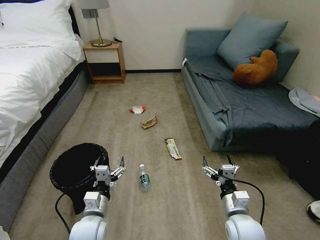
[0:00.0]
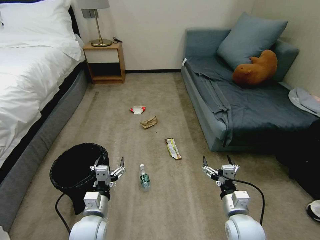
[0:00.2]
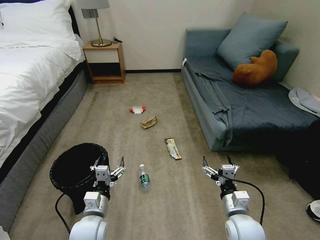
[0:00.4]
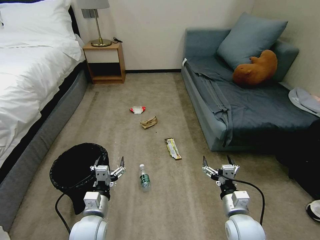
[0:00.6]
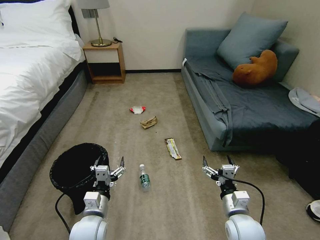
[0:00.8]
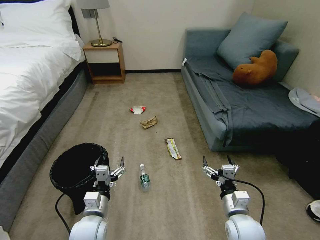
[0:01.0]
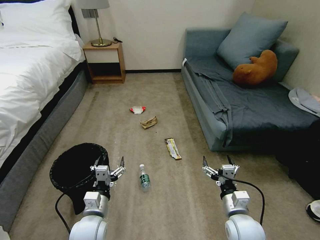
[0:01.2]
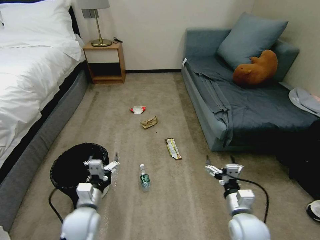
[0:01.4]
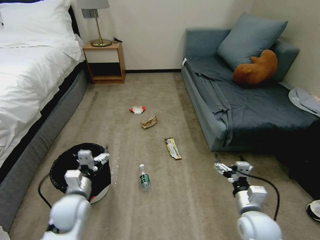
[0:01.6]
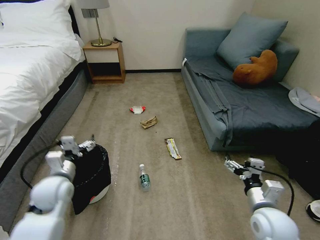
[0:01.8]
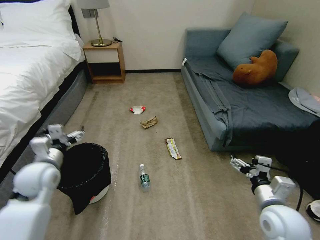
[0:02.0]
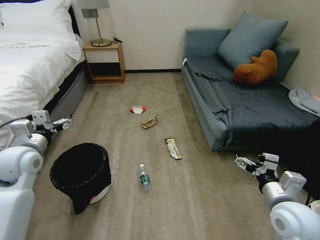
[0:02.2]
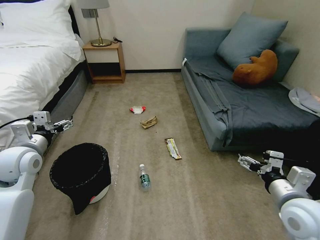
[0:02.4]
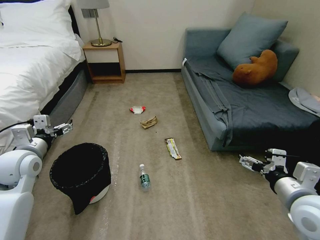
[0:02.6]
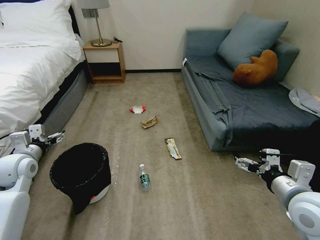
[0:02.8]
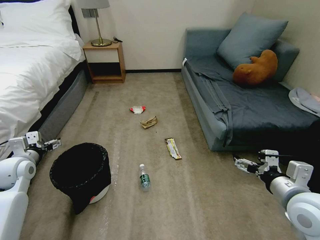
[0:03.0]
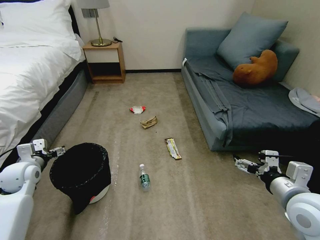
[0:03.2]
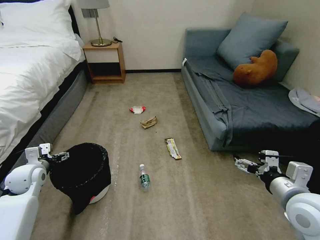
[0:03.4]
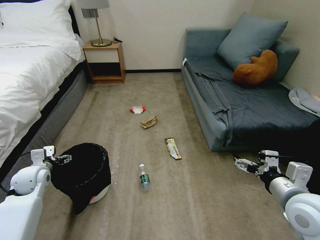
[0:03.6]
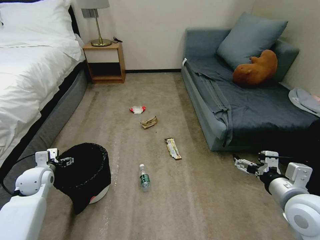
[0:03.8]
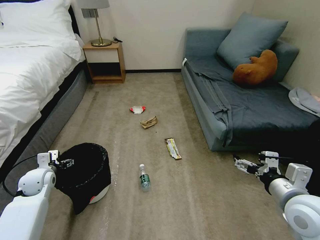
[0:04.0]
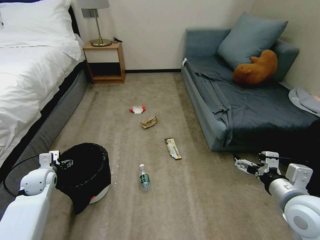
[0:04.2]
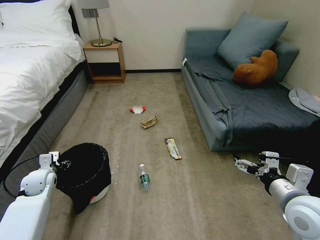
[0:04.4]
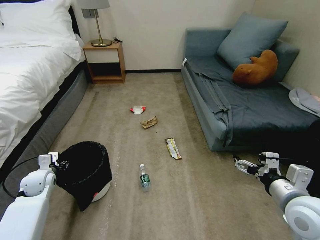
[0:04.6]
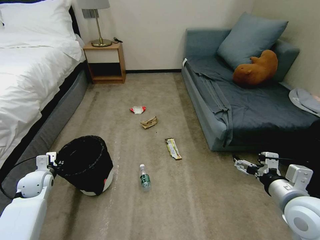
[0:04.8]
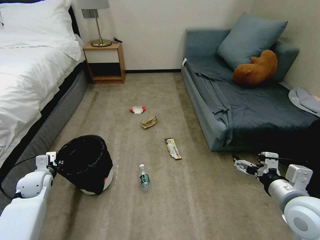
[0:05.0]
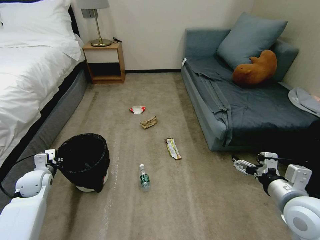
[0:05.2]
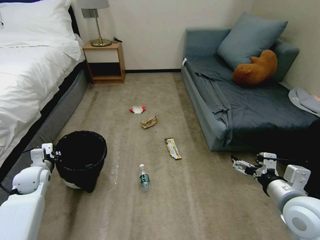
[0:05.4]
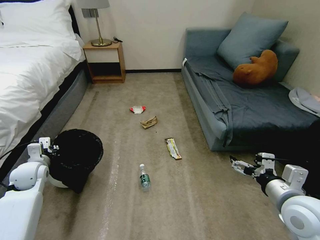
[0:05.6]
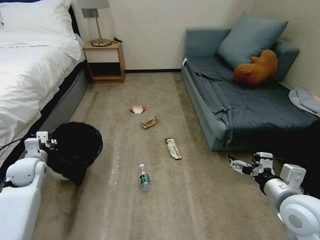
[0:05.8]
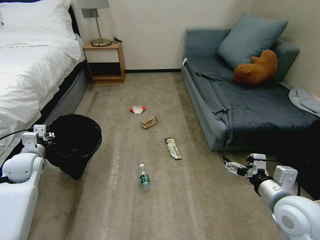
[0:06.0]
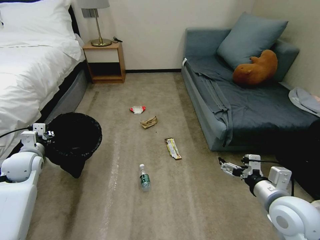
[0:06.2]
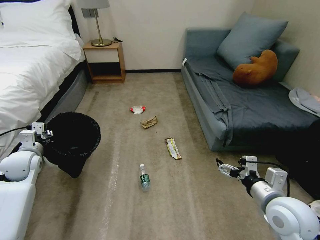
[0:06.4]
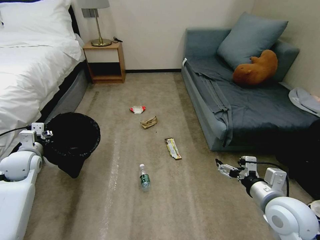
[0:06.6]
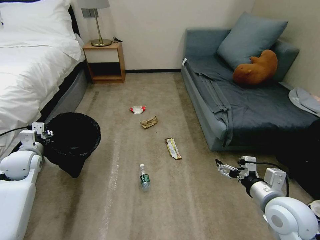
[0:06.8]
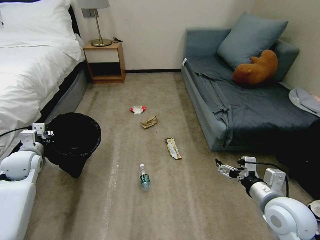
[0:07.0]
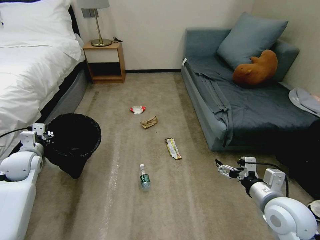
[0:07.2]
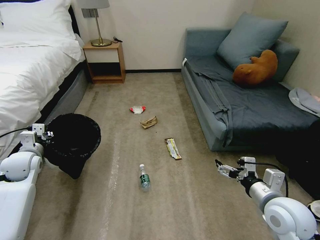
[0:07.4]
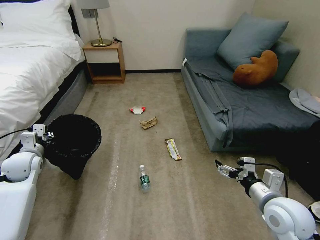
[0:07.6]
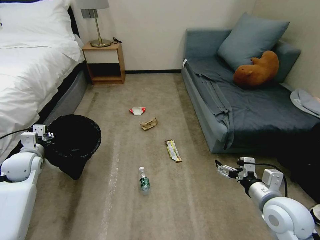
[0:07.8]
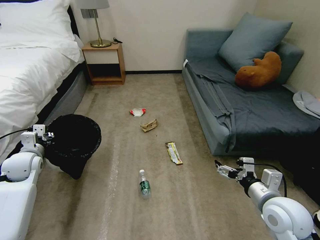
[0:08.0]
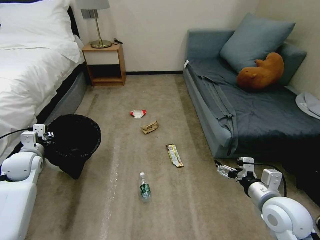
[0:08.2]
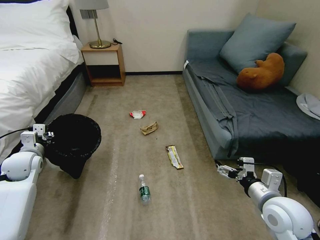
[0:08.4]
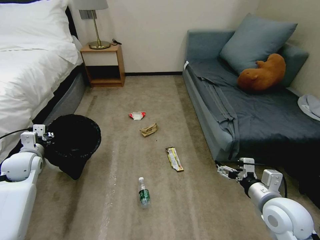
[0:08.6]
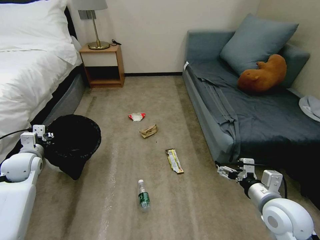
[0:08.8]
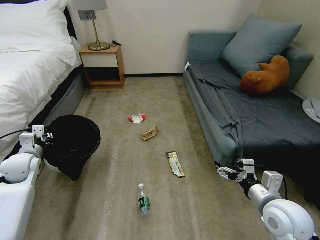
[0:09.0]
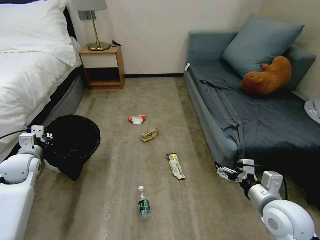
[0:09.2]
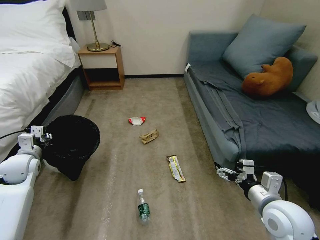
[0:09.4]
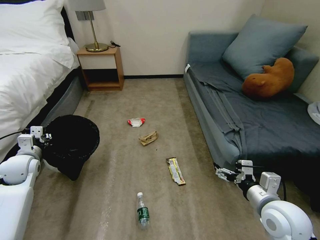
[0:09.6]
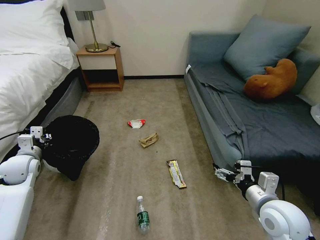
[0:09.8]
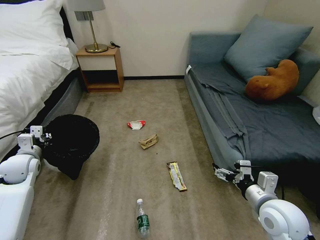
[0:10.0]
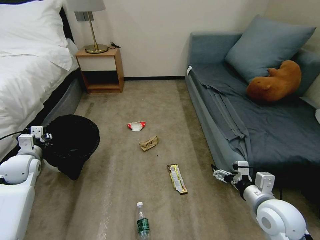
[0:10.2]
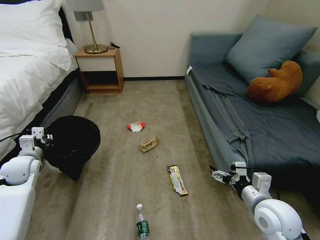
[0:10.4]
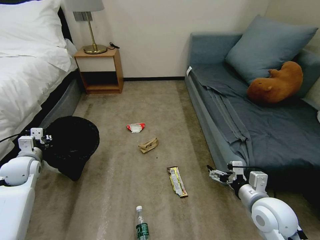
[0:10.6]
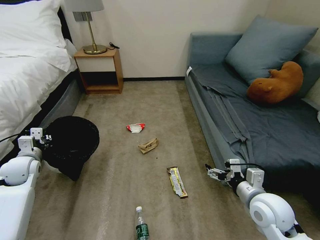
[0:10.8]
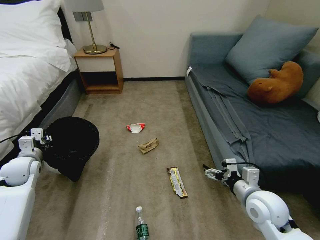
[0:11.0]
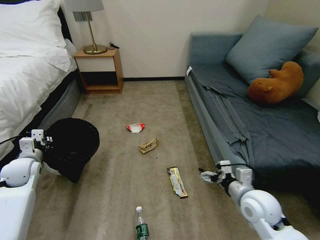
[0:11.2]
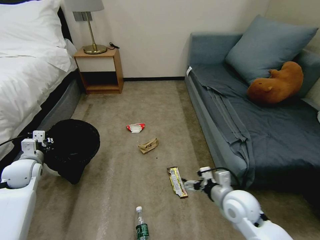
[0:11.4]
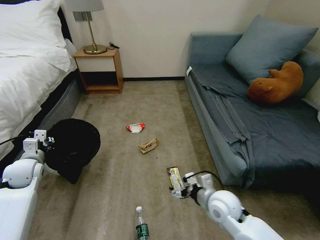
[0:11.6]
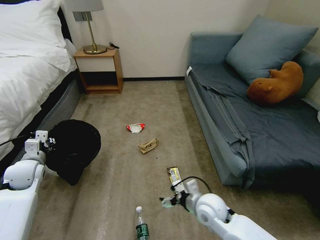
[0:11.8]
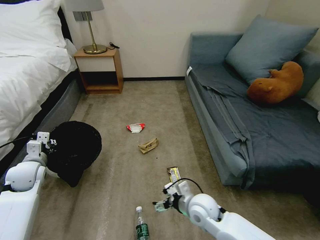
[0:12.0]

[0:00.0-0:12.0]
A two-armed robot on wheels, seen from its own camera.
Task of the whole recording: Pick up the trash bin, then pick up the garbage on the floor and place it into the trash bin.
0:01.6 to 0:03.0: The right gripper heads upward and to the right, covering about 15 cm; the left gripper travels to the left and forward by roughly 20 cm.
0:03.0 to 0:04.4: The left gripper goes roughly 10 cm downward, and closes its fingers.
0:04.4 to 0:06.0: The left gripper shifts approximately 10 cm upward, and closes its fingers.
0:06.0 to 0:07.6: The grippers stay close to where they were, moving slightly.
0:10.4 to 0:12.0: The right gripper heads to the left and downward, covering about 20 cm.

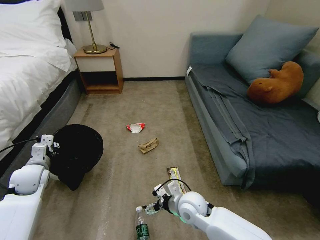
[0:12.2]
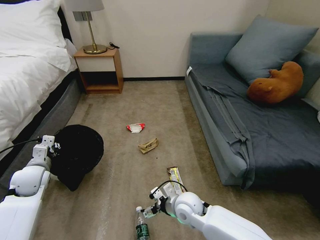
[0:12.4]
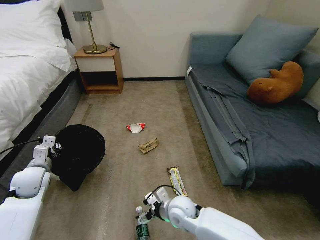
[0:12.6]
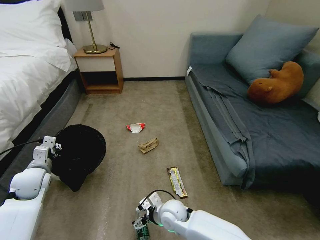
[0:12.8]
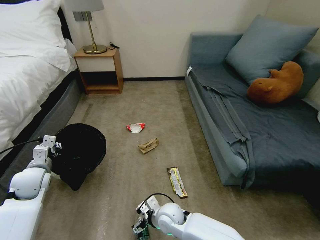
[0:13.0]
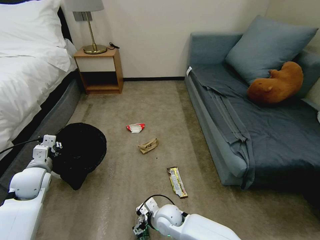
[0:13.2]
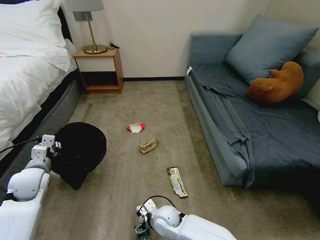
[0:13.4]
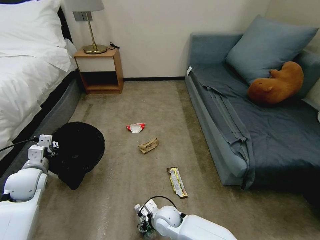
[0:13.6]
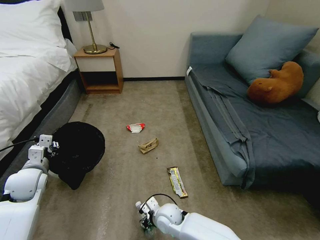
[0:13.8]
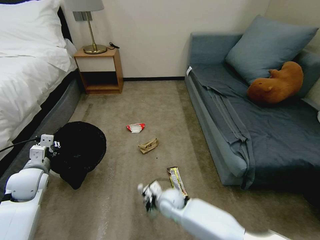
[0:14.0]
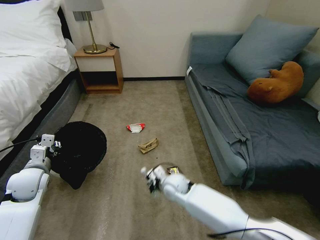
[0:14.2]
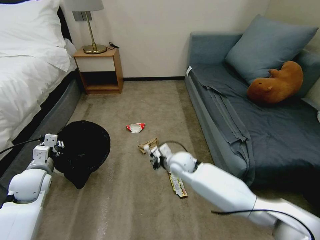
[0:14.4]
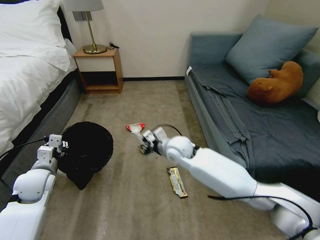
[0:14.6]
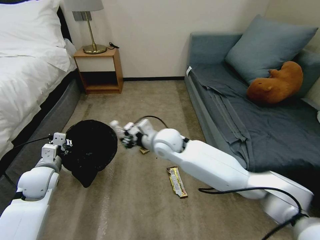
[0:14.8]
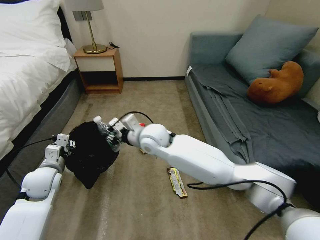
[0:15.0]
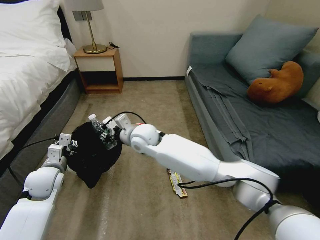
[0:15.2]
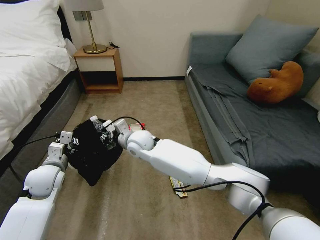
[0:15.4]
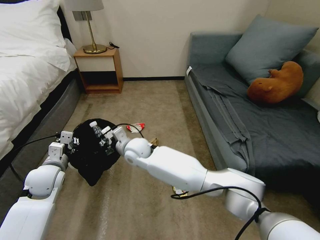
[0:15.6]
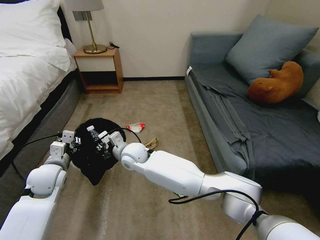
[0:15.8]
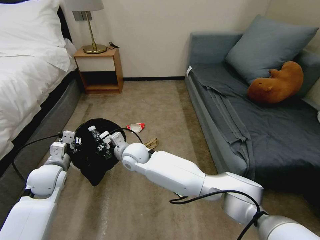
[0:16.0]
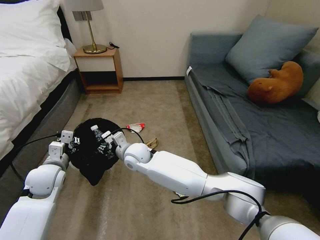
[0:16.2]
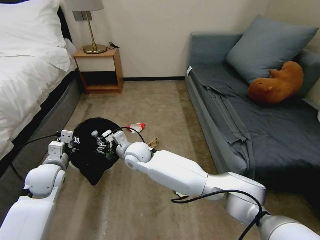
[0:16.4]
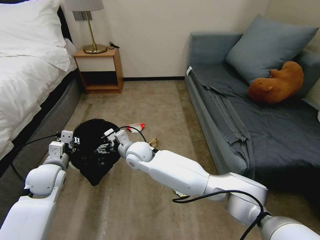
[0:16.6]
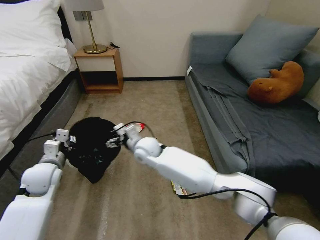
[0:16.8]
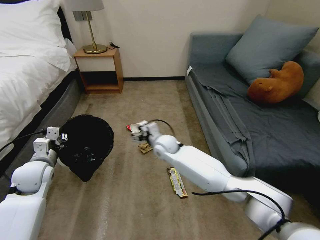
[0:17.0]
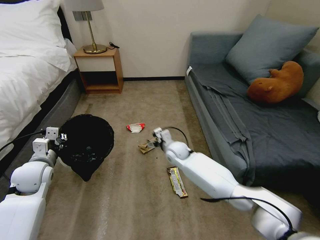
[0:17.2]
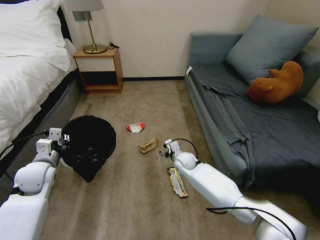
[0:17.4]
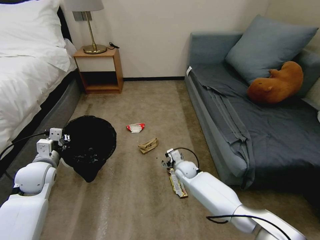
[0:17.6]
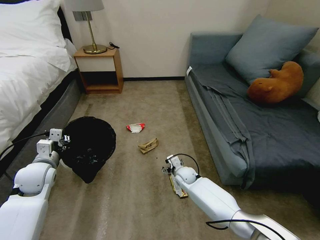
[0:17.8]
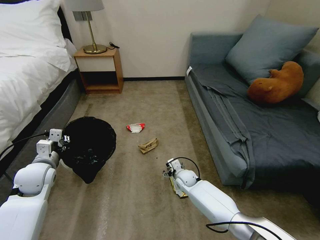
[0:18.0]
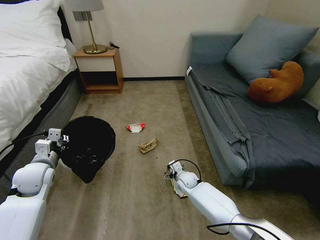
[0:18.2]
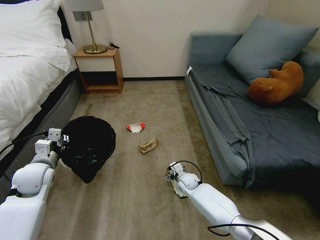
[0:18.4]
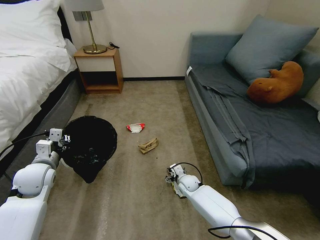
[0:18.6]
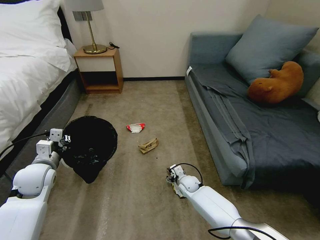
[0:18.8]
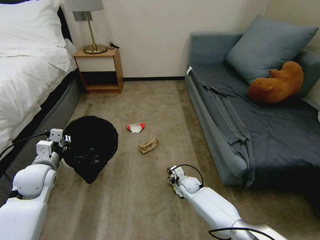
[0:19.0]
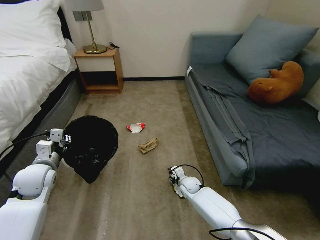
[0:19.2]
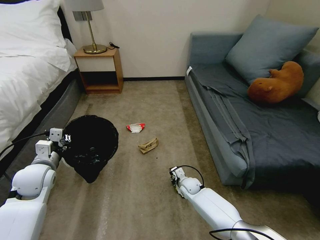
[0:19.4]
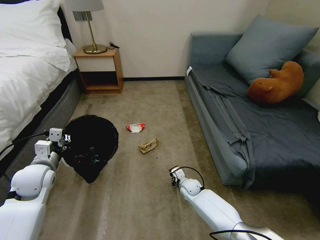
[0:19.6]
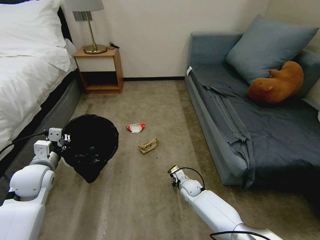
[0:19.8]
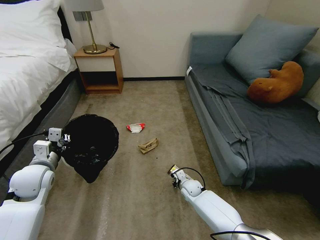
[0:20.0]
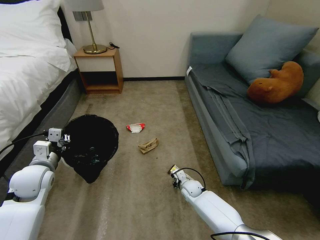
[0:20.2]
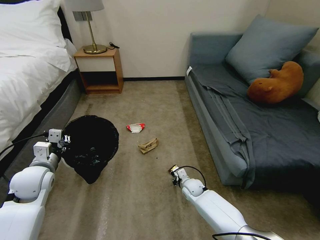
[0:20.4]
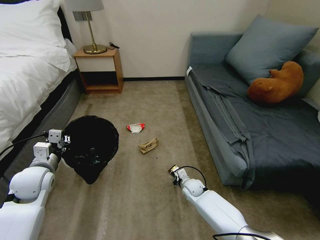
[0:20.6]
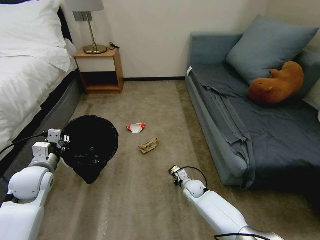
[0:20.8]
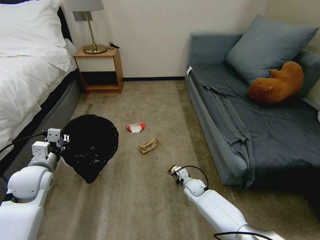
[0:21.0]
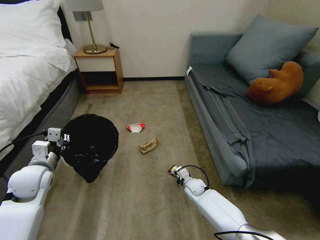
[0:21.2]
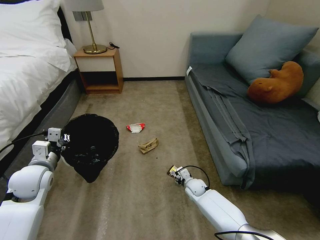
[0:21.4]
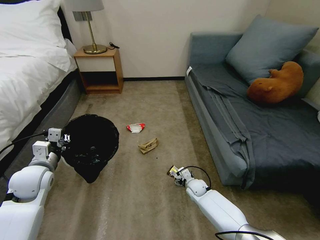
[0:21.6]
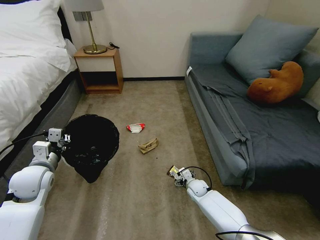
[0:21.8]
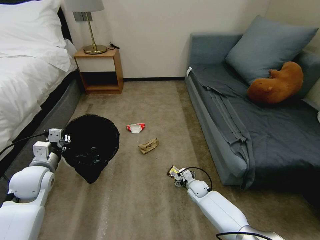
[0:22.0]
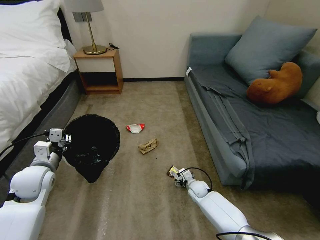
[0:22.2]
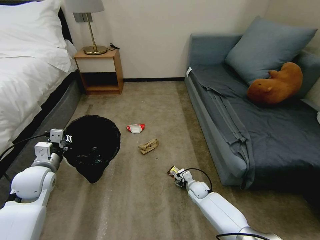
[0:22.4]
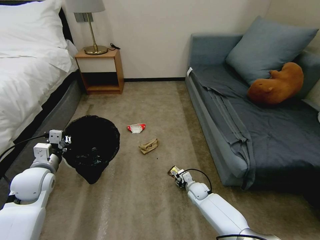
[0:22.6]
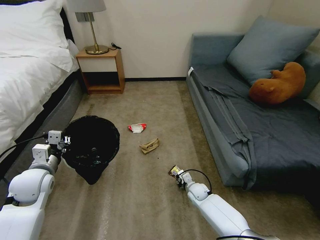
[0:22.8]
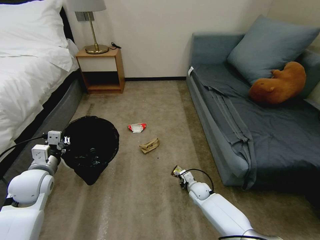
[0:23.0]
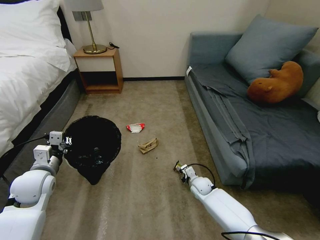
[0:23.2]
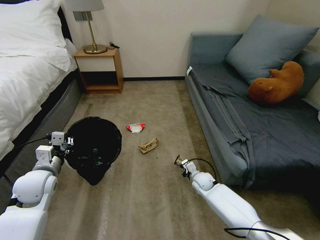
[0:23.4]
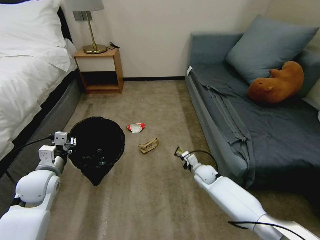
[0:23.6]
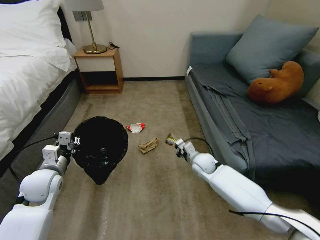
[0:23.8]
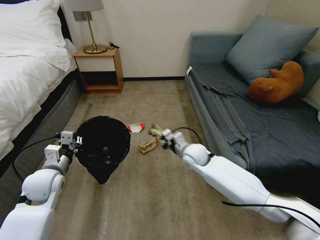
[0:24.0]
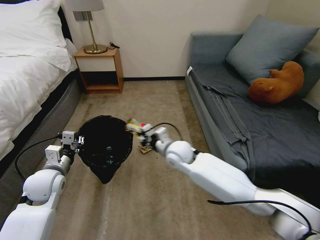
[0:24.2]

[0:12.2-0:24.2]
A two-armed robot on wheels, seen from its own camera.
Task of the whole recording: Pick up the trash bin, then pick up the garbage on the floor and place it into the trash bin.
0:12.2 to 0:13.8: The right gripper goes approximately 10 cm downward and to the left, and closes up.
0:13.8 to 0:15.2: The left gripper moves to the right, about 5 cm, while the right gripper shifts some 30 cm upward and forward.
0:15.2 to 0:16.6: The right gripper is displaced downward by roughly 5 cm, and opens its fingers.
0:16.6 to 0:18.2: The right gripper heads downward and to the right, covering roughly 30 cm.
0:18.2 to 0:19.8: The right gripper closes.
0:19.8 to 0:21.2: The right gripper opens up.
0:21.2 to 0:22.6: The right gripper opens and closes again.
0:22.6 to 0:24.2: The right gripper travels upward and to the left by about 30 cm, and closes its fingers.
